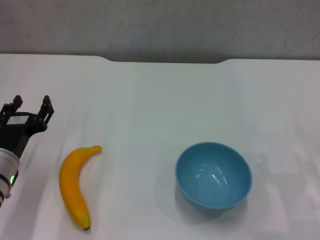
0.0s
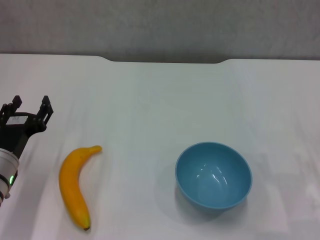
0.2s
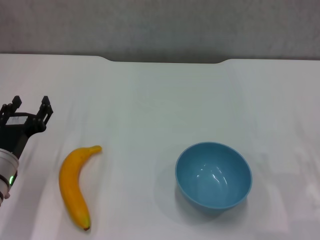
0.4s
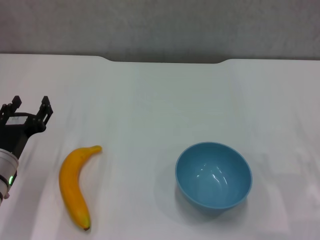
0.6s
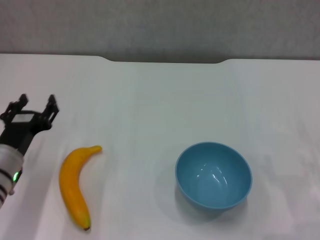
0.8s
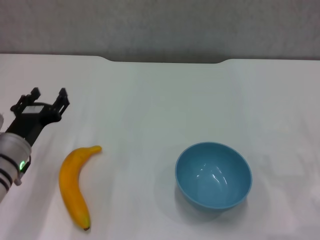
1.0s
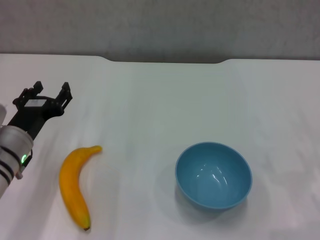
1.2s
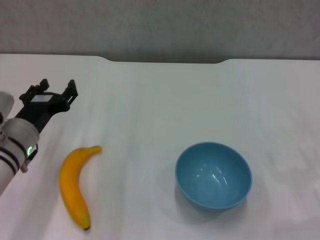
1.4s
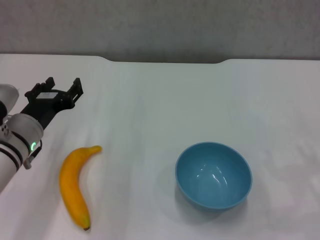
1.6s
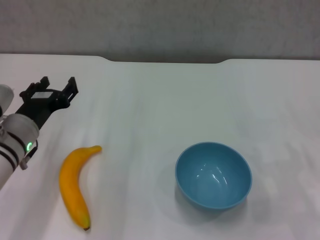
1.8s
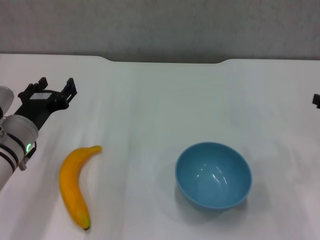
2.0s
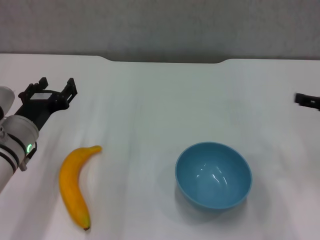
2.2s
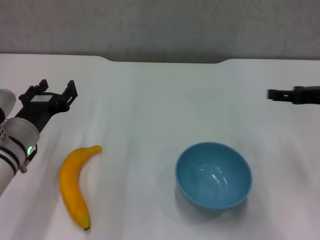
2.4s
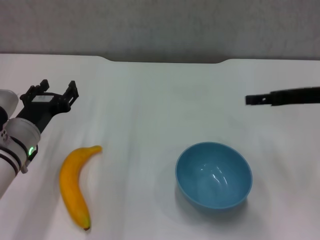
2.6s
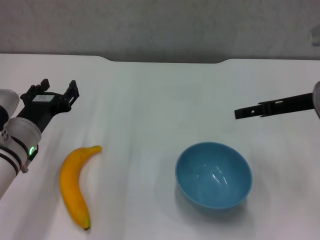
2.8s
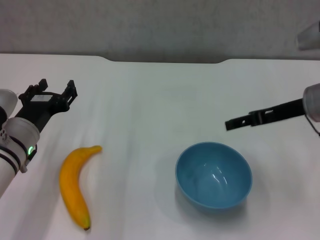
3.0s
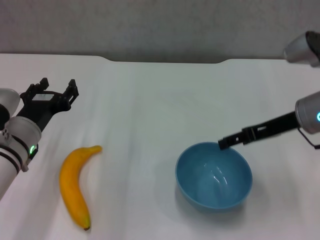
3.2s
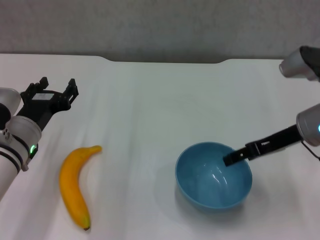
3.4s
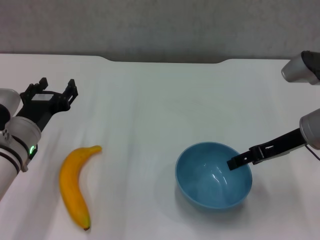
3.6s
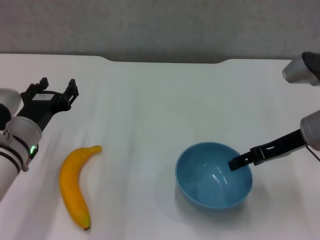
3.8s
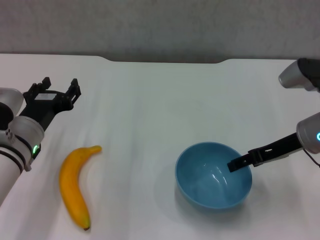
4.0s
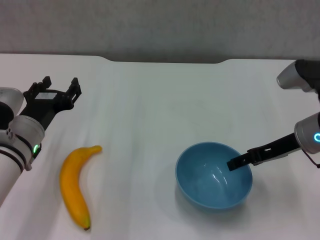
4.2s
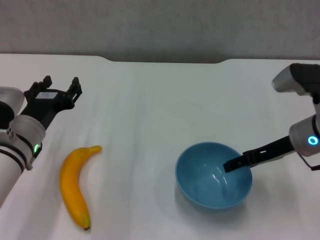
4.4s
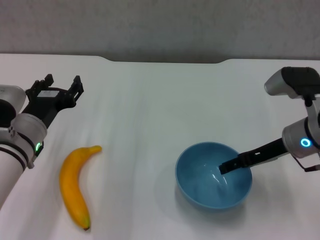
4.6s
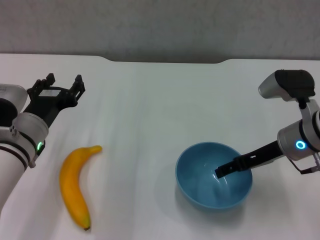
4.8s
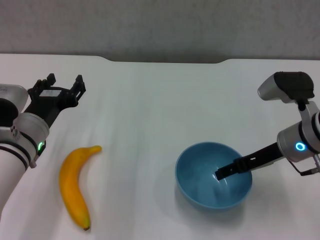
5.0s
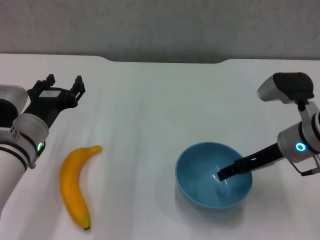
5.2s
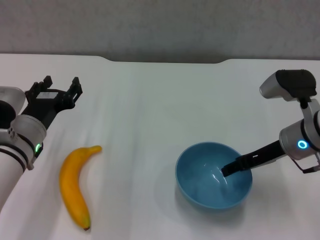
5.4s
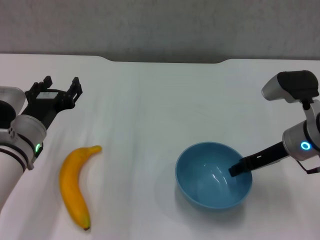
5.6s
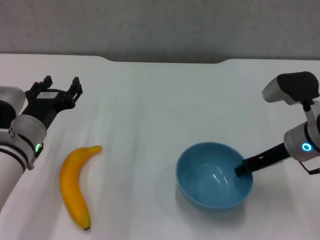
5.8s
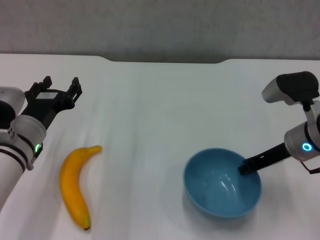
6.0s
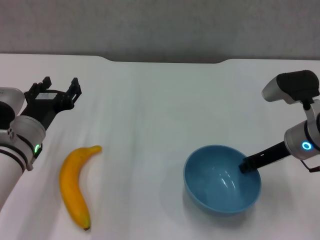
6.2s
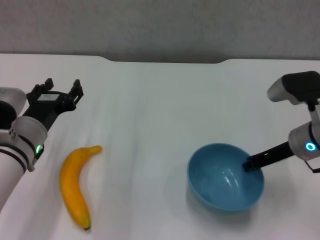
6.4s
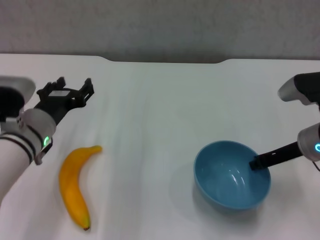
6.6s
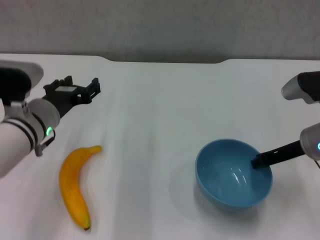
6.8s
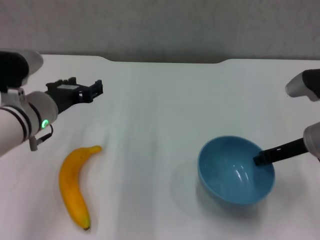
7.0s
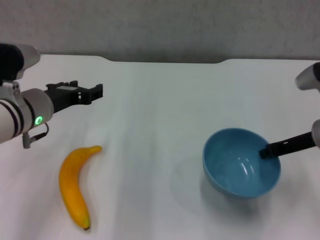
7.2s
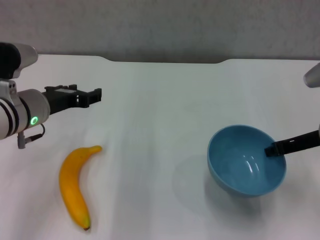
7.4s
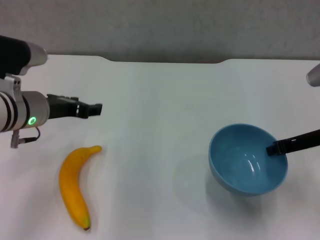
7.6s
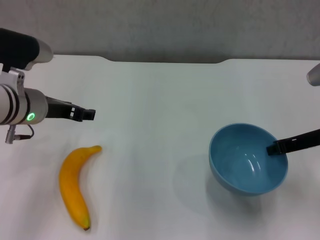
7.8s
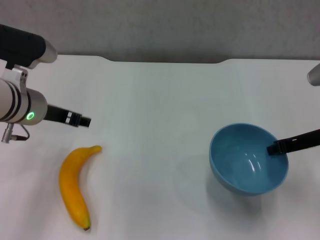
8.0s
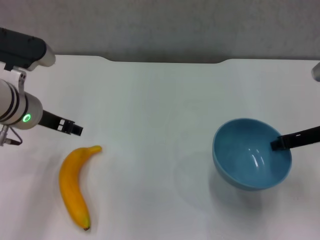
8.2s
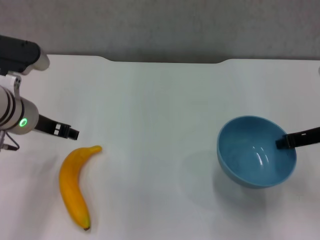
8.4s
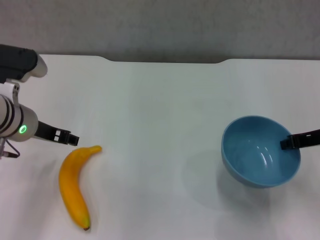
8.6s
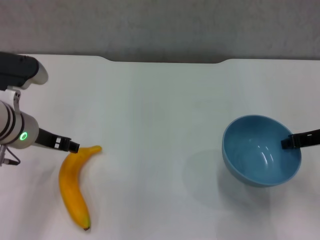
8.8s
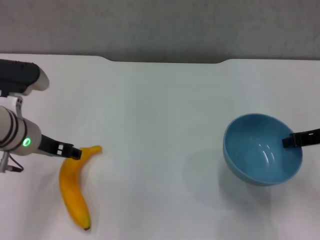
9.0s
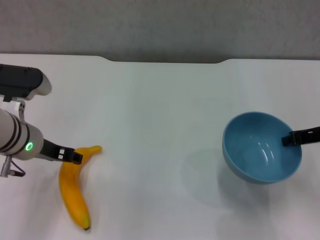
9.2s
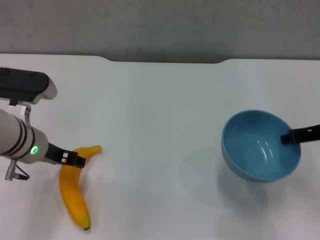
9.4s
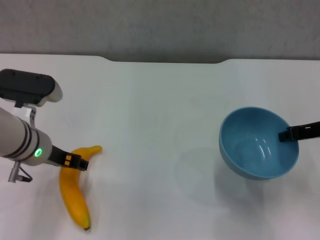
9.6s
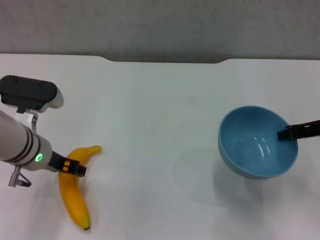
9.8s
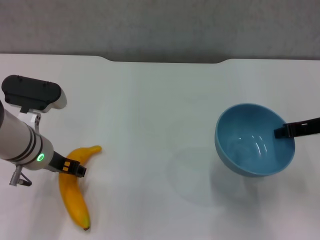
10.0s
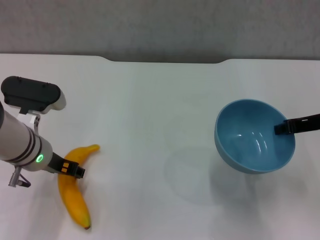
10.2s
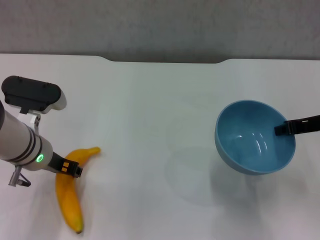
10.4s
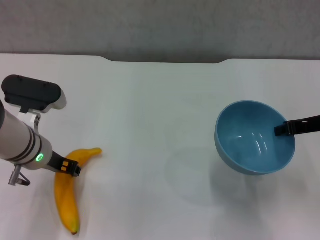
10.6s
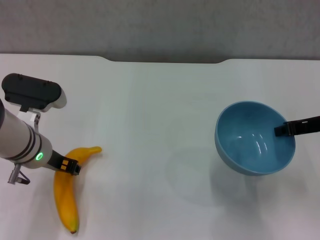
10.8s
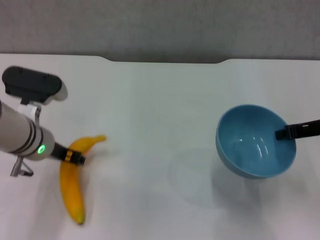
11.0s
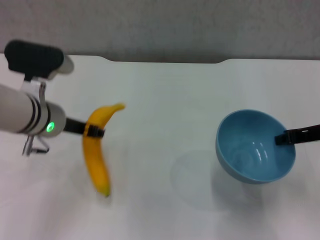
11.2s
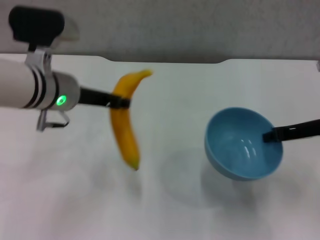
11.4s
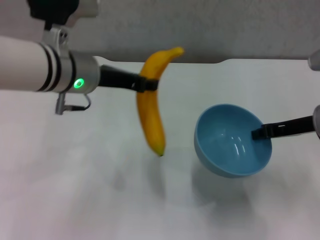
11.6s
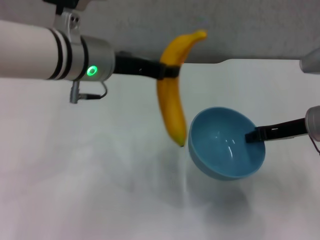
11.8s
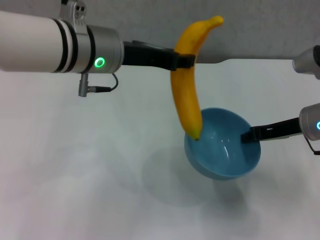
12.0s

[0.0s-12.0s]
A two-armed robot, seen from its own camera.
Step, 0.0s to 6.0s: Grasp the blue bowl with right gripper.
Step, 6.2s to 7.4s: Lift the blue bowl with right gripper.
Step, 7.8s to 10.4s: Grasp the banana with left gripper.
0.0s to 1.6s: The left gripper moves some 5 cm.
1.6s to 3.0s: The right gripper goes some 20 cm to the left, forward and upward.
3.0s to 4.4s: The right gripper changes place by roughly 5 cm.
4.4s to 6.0s: The right gripper closes up.
6.0s to 7.6s: The left gripper goes some 5 cm upward, while the right gripper ends up approximately 5 cm from where it was.
9.0s to 10.4s: The grippers make only small movements.
10.4s to 12.0s: The right gripper changes place by some 5 cm. Meanwhile the left gripper goes roughly 15 cm upward and to the right.

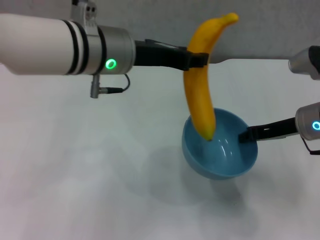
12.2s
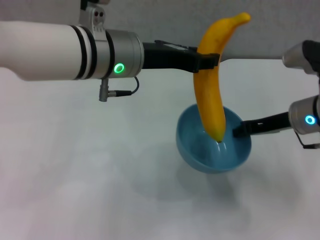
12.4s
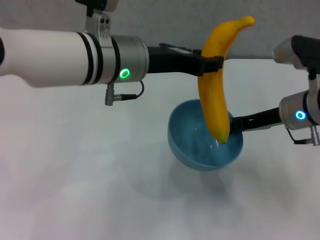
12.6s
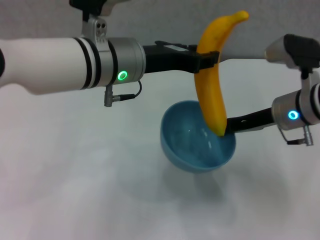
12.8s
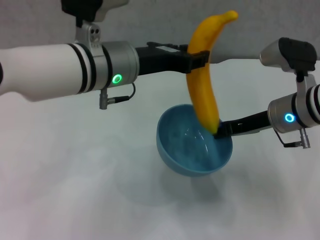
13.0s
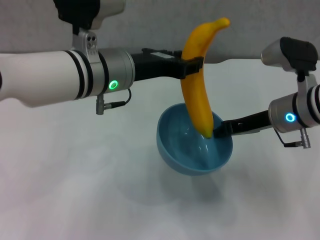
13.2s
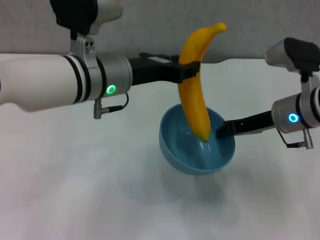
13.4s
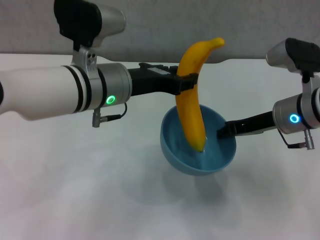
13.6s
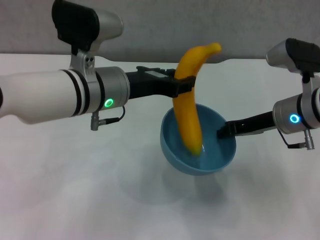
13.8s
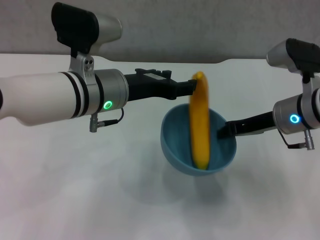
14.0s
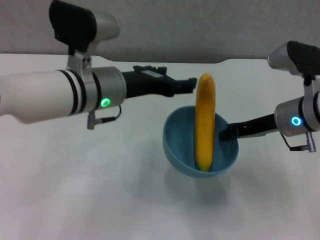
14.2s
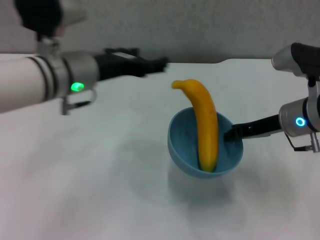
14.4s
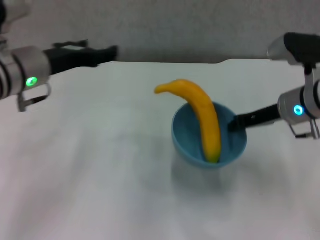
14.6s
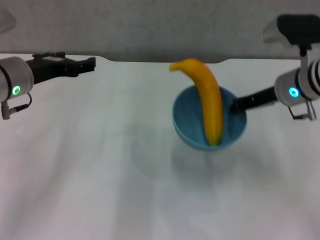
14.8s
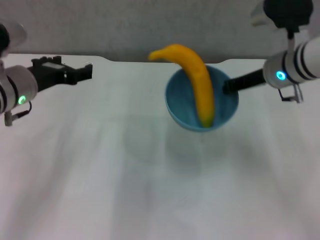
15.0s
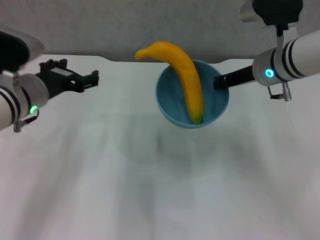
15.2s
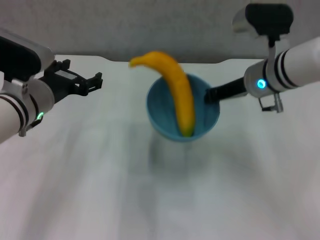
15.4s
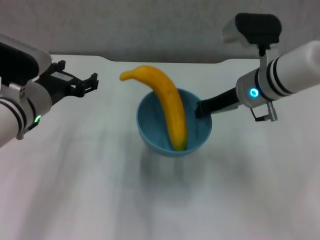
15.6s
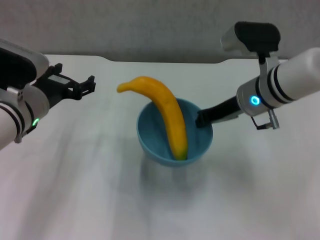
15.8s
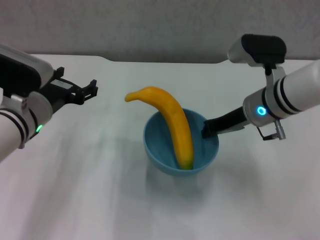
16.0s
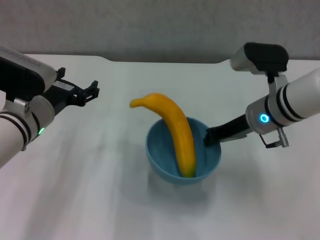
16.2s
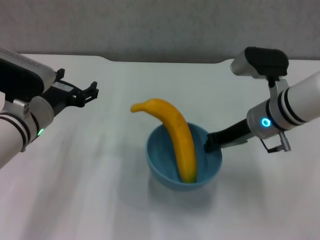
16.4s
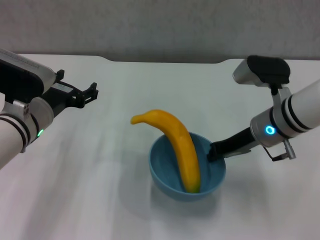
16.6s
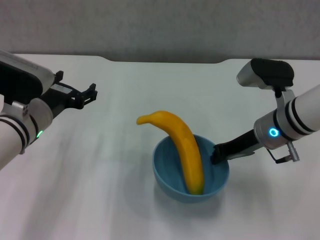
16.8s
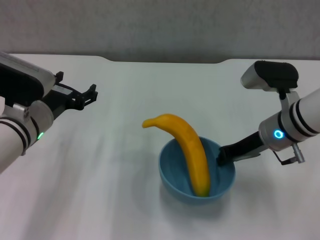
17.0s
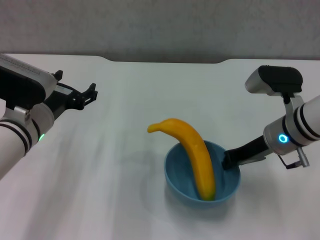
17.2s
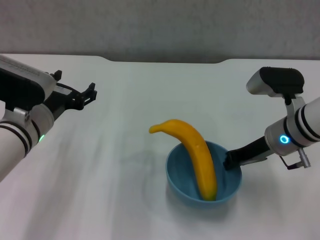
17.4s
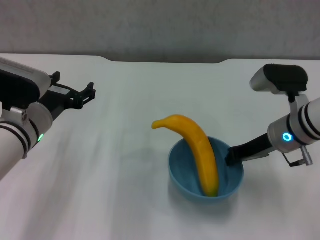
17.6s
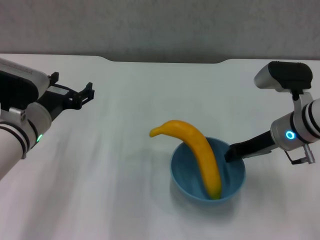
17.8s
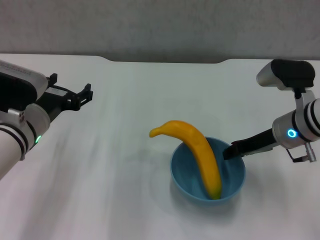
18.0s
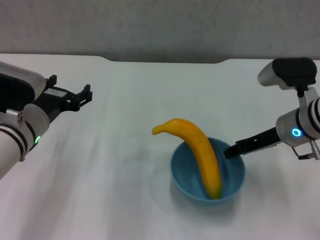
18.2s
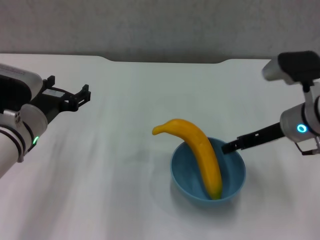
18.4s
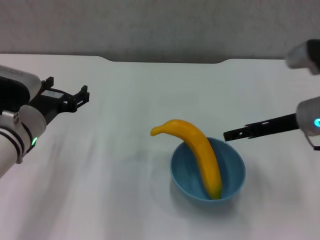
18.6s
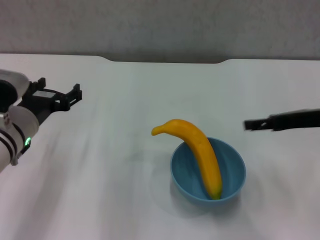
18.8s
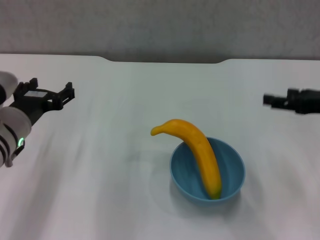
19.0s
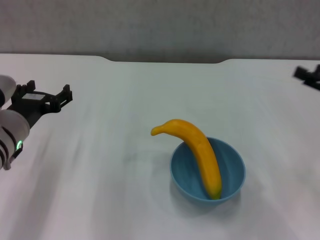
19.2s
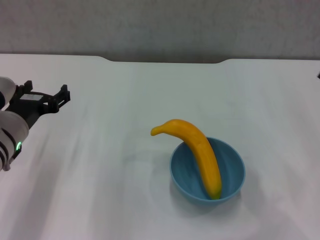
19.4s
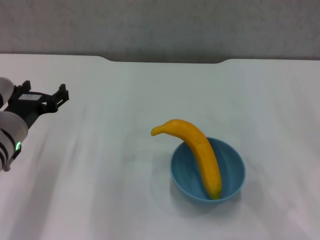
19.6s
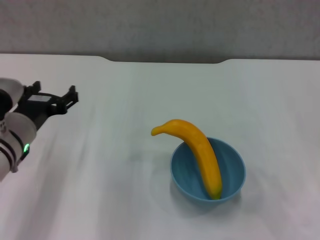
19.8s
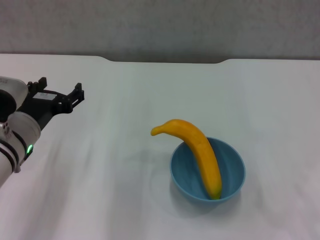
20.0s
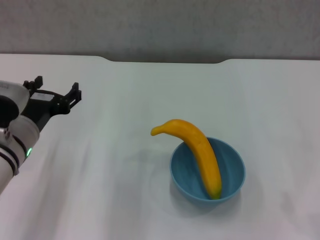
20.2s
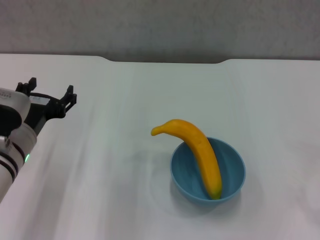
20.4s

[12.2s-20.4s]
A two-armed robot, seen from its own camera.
Step, 12.2s to 14.0s: Place the banana in the blue bowl with left gripper.
Step, 14.2s to 18.4s: Place the bowl on the table with right gripper.
12.2s to 13.8s: The left gripper shifts approximately 5 cm downward.
13.8s to 15.4s: The right gripper changes place by approximately 5 cm; the left gripper shifts approximately 10 cm to the left and downward, and opens.
15.4s to 17.2s: The right gripper shifts about 10 cm downward and backward.
17.2s to 18.8s: The right gripper goes about 10 cm to the right and upward, and opens its fingers.
18.8s to 20.4s: The right gripper travels backward, to the right and downward by some 20 cm.

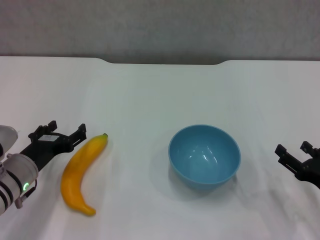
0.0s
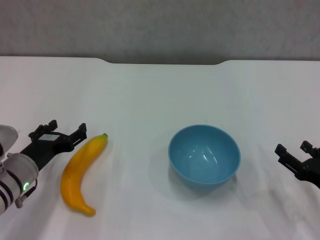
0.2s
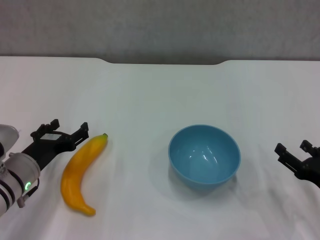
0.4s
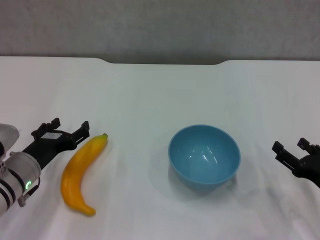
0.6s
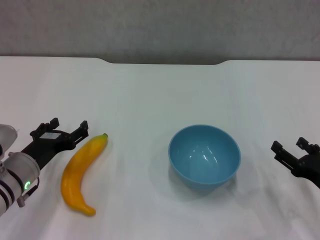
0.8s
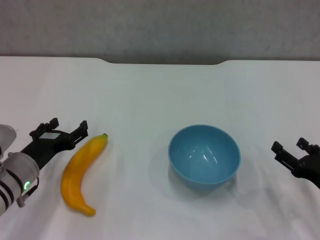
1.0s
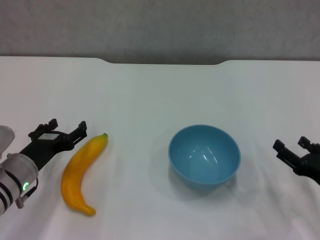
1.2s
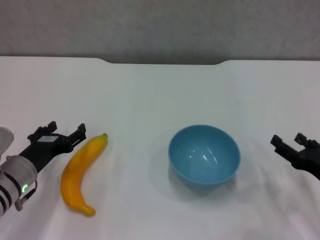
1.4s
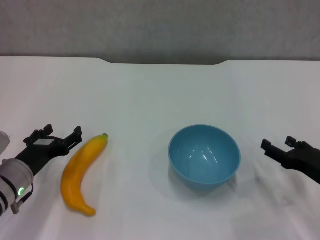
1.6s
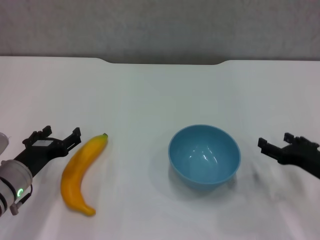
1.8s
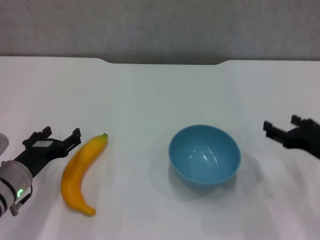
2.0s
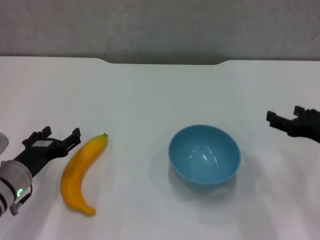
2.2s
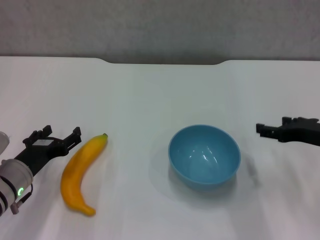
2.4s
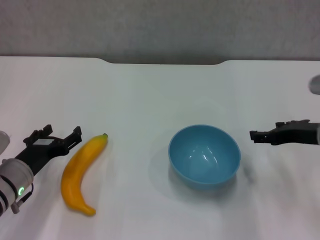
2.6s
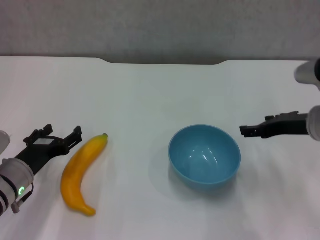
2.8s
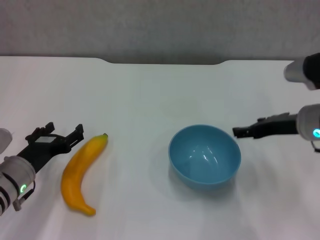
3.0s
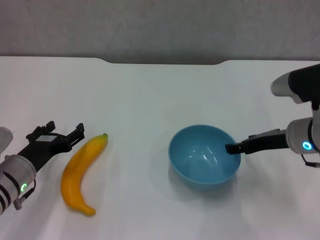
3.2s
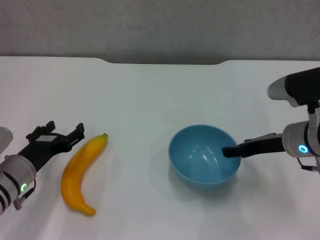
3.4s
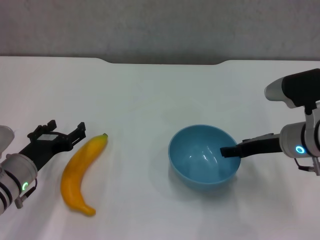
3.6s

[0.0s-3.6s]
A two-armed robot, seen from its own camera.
0.0s to 1.8s: The right gripper changes place by approximately 5 cm.
1.8s to 3.6s: The right gripper heads to the left, forward and upward, covering roughly 10 cm.
